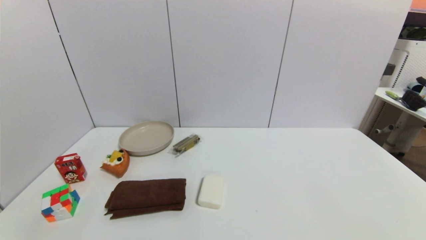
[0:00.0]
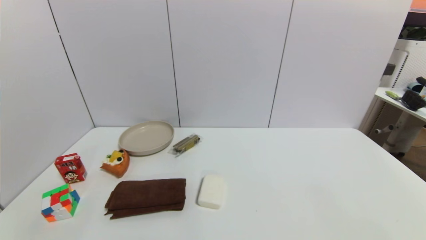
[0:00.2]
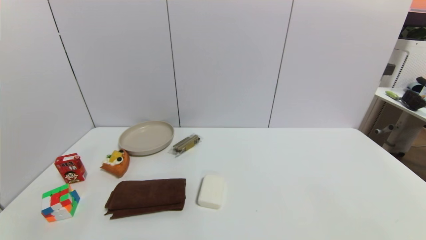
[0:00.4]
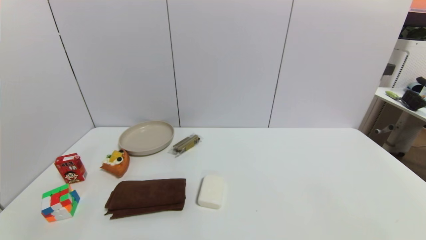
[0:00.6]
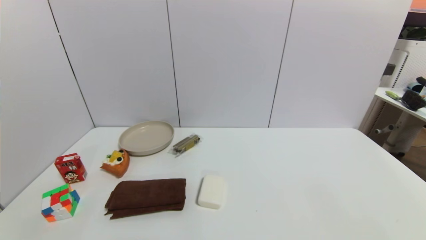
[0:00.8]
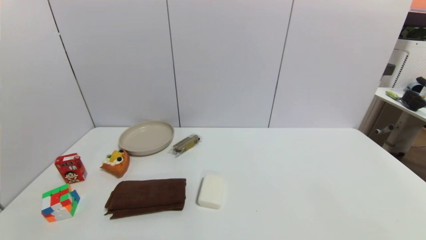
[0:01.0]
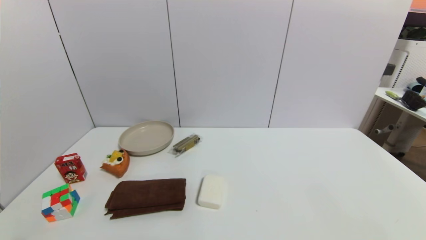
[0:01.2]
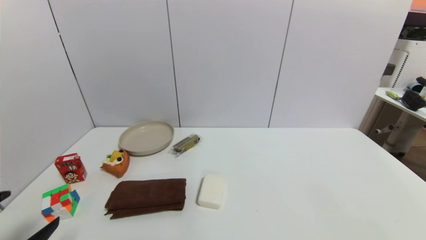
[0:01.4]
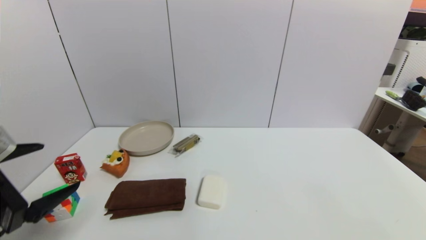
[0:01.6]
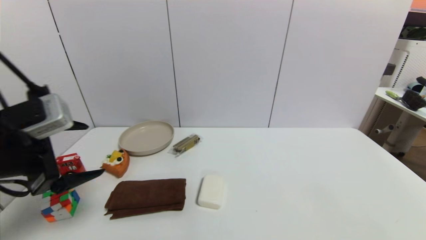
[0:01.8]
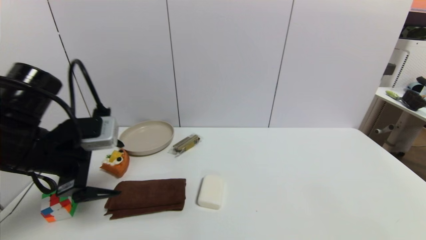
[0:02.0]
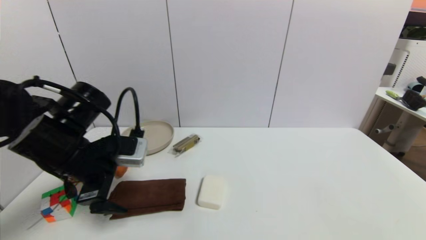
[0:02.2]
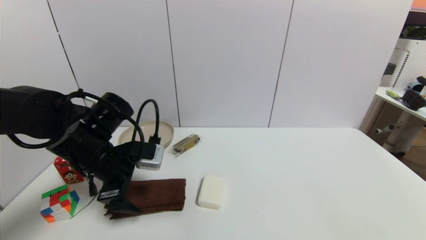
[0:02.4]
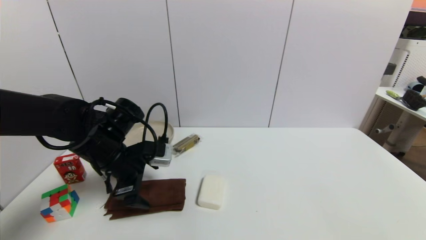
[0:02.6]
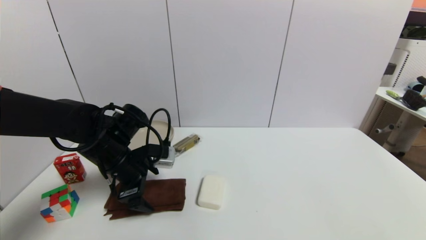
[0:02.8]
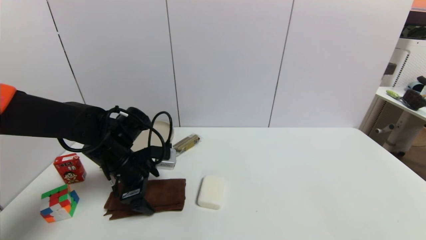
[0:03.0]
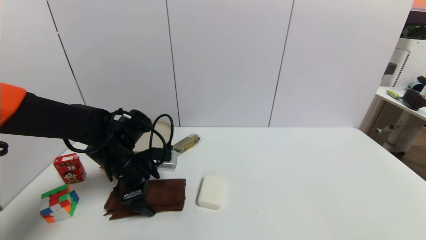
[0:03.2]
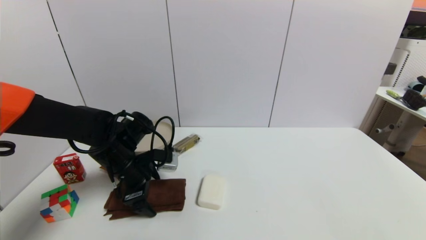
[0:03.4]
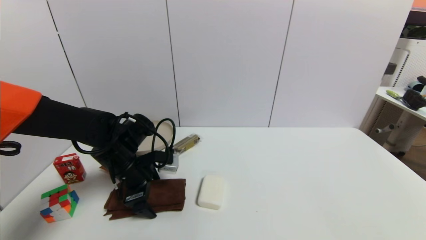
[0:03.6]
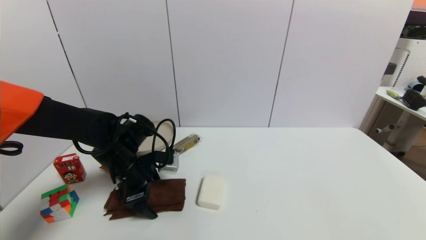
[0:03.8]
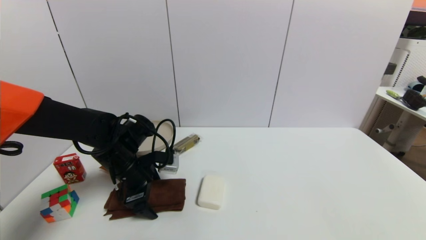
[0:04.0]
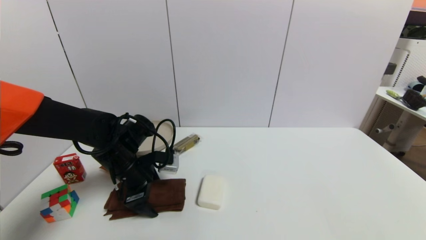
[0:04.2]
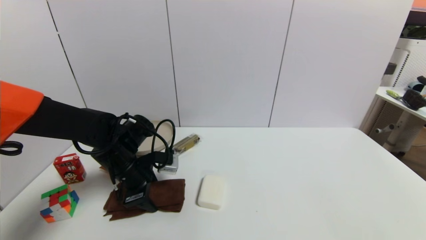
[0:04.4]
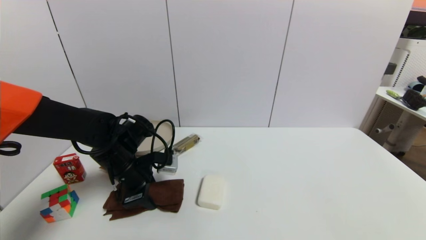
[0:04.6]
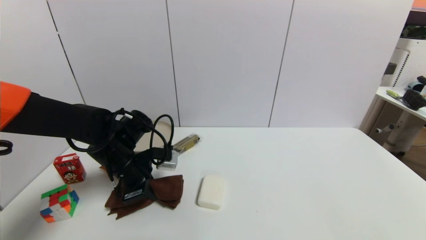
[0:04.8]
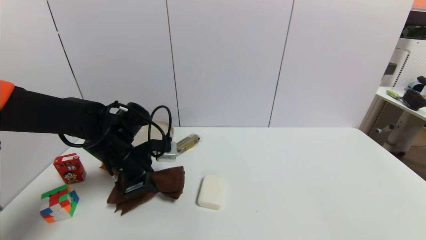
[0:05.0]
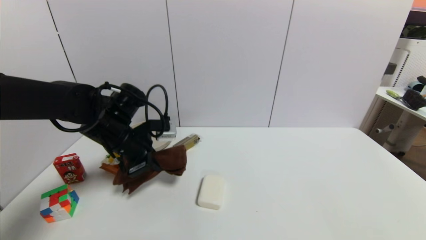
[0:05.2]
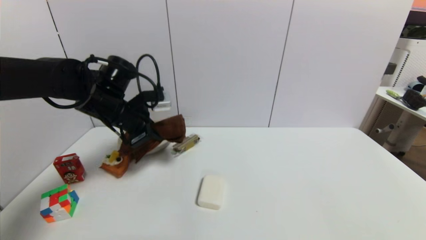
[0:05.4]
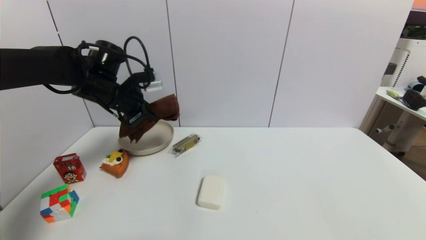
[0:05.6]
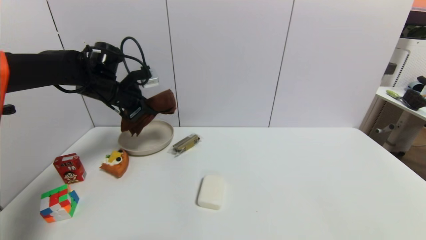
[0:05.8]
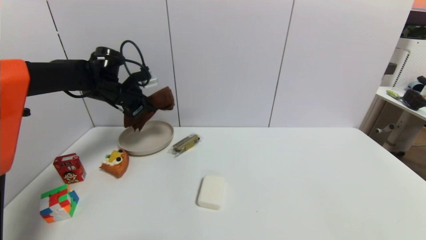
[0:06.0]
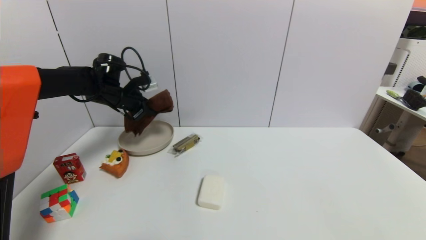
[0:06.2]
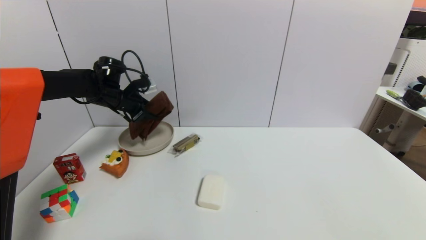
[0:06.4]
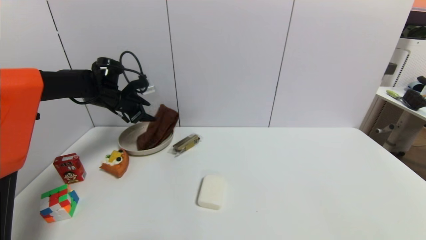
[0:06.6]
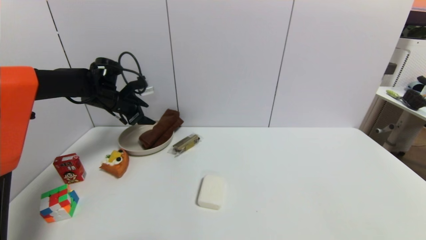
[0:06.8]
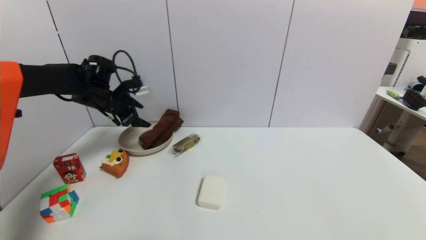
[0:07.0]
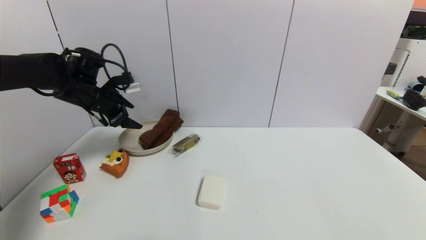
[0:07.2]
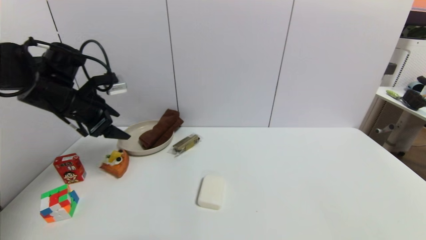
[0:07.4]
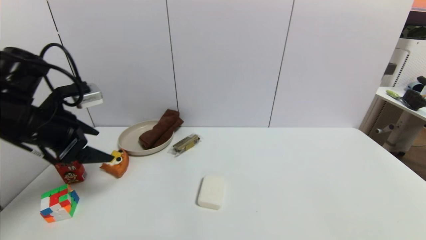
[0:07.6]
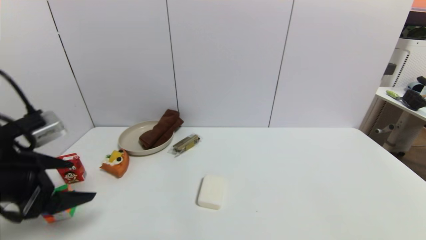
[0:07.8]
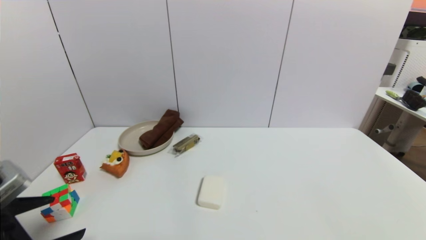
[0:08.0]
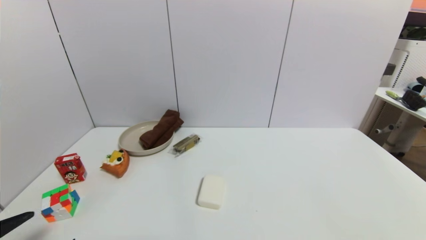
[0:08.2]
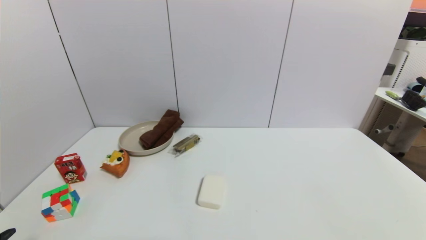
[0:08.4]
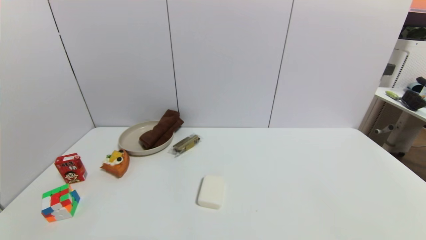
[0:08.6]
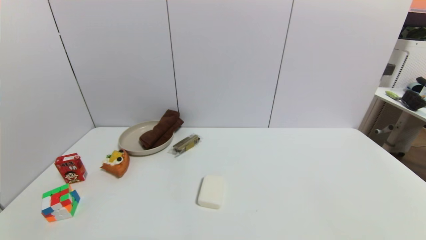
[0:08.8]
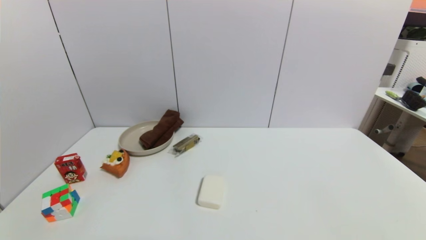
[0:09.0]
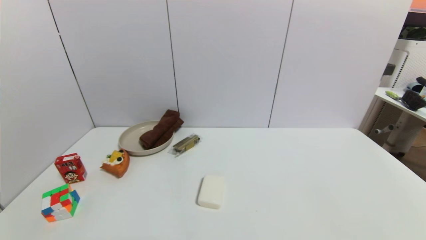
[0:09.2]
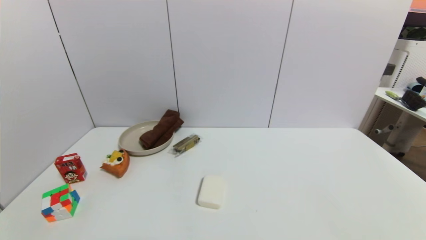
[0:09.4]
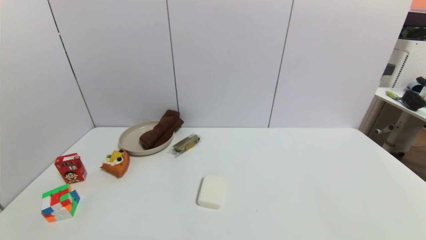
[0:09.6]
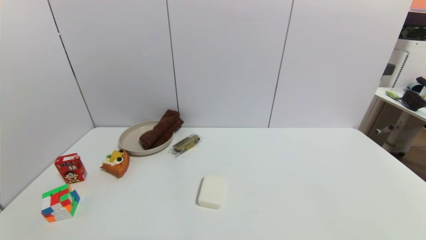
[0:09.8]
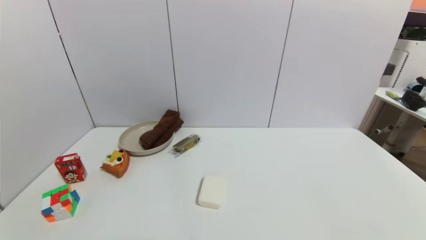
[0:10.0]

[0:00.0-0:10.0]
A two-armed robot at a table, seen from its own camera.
Task of the whole recording: use a gripper to pick the target object and place on the brown plate.
Step, 0:00.0 to 0:04.6: Grasp the brown towel with the left gripper.
Step, 0:04.8 to 0:07.0: Place the brown towel on the brown plate with the left gripper.
0:00.0 to 0:01.4: The left gripper heads upward and forward, covering roughly 15 cm.
0:01.4 to 0:02.8: The left gripper heads forward and to the right, covering roughly 25 cm.
0:02.8 to 0:04.2: The grippers make only small movements.
0:04.2 to 0:05.8: The left gripper shifts some 15 cm upward, forward and to the left, and closes.
0:05.8 to 0:07.2: The left gripper changes place by about 5 cm, and opens its fingers.
0:07.2 to 0:08.6: The left gripper goes some 40 cm backward.
